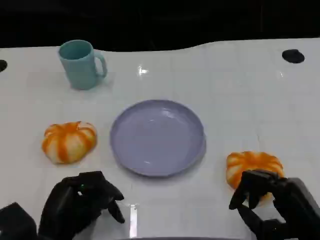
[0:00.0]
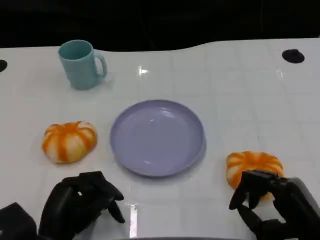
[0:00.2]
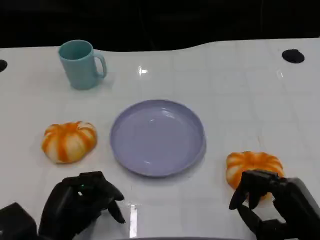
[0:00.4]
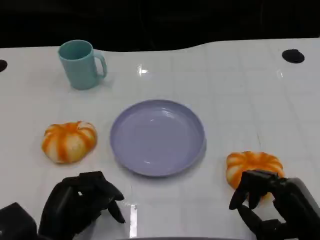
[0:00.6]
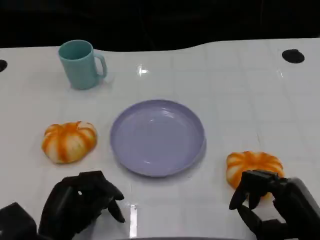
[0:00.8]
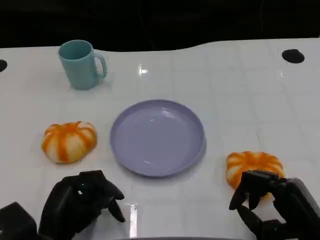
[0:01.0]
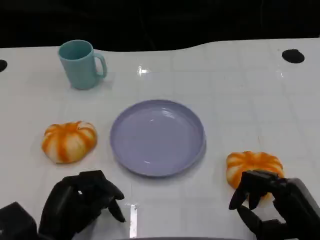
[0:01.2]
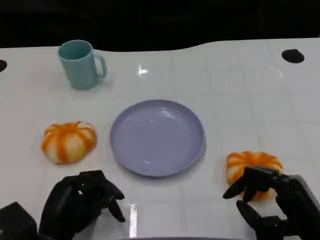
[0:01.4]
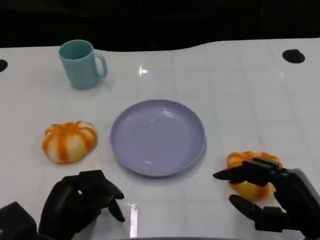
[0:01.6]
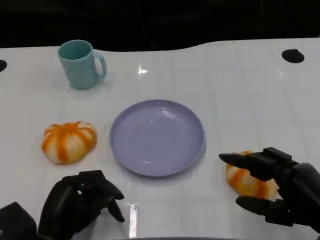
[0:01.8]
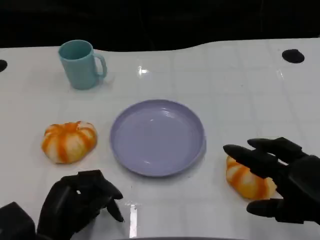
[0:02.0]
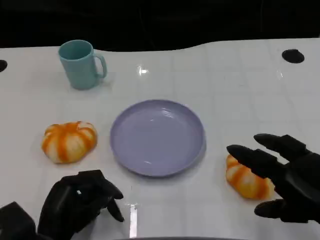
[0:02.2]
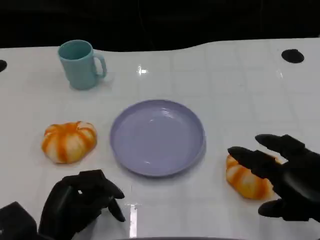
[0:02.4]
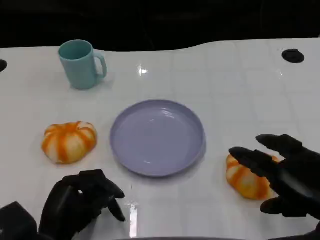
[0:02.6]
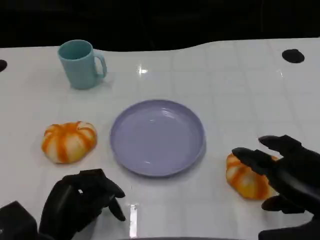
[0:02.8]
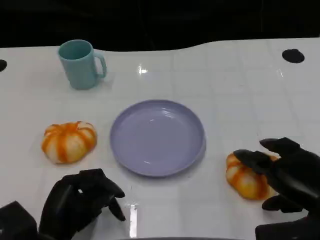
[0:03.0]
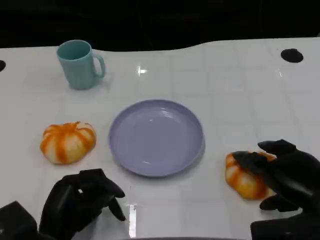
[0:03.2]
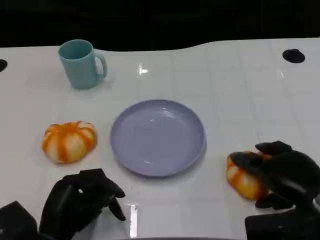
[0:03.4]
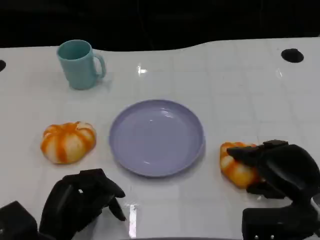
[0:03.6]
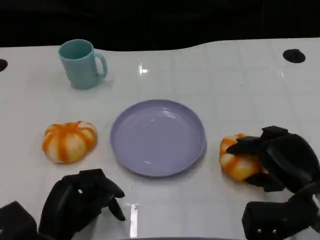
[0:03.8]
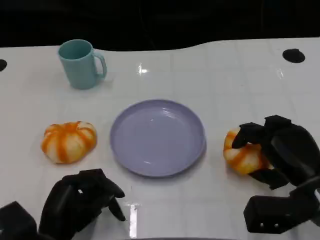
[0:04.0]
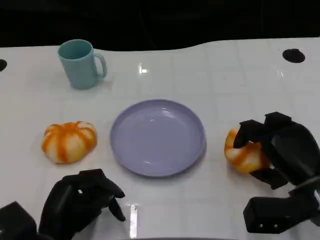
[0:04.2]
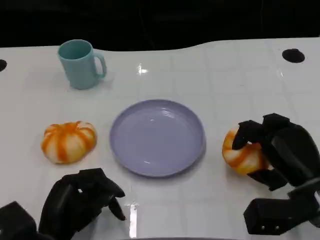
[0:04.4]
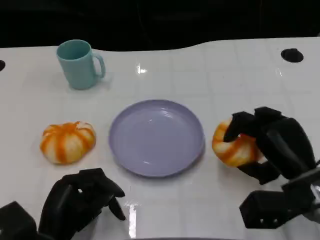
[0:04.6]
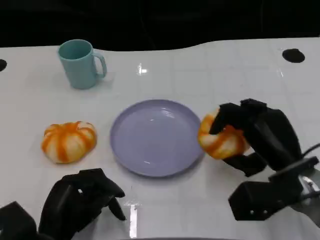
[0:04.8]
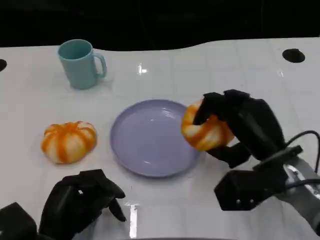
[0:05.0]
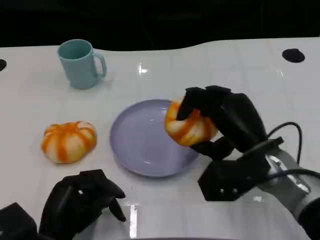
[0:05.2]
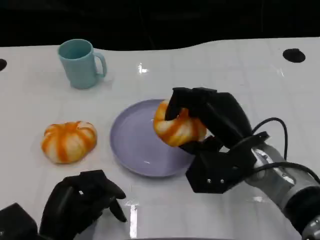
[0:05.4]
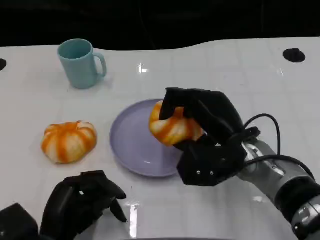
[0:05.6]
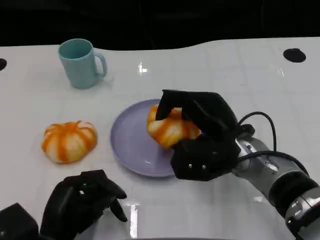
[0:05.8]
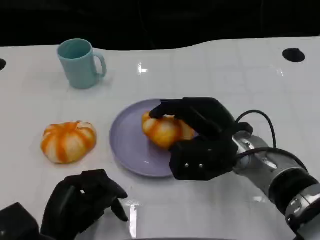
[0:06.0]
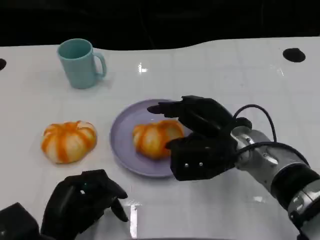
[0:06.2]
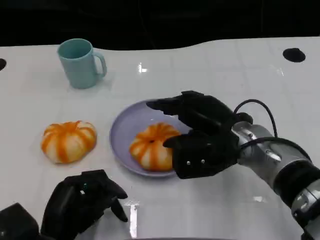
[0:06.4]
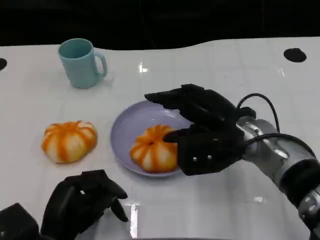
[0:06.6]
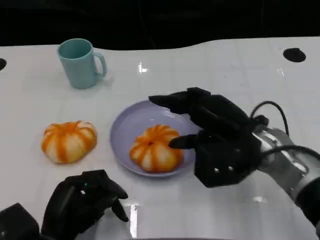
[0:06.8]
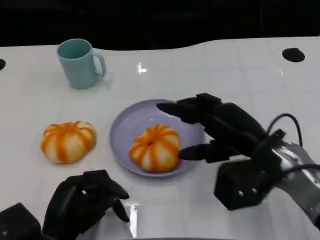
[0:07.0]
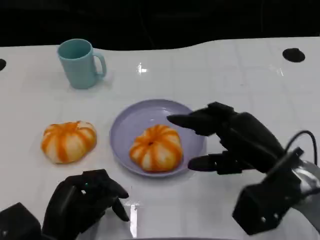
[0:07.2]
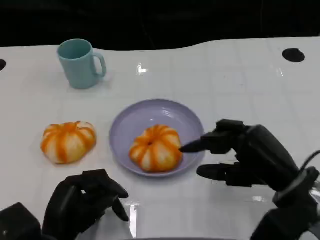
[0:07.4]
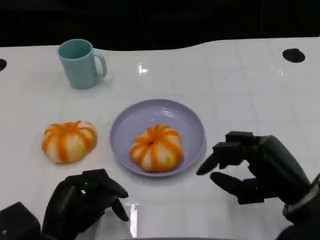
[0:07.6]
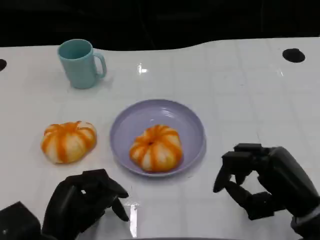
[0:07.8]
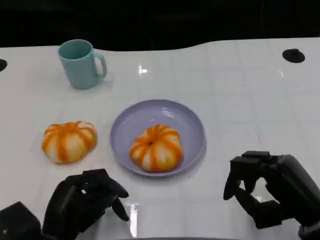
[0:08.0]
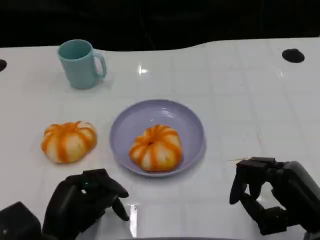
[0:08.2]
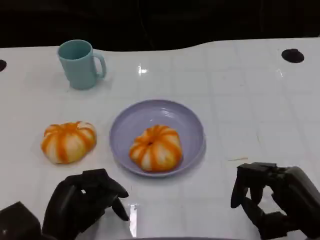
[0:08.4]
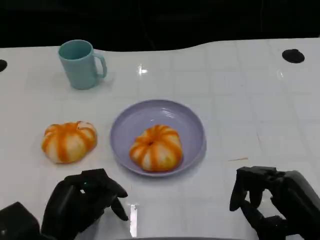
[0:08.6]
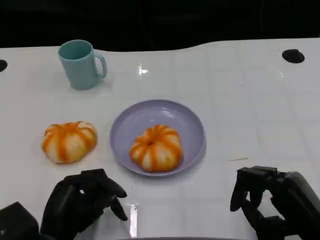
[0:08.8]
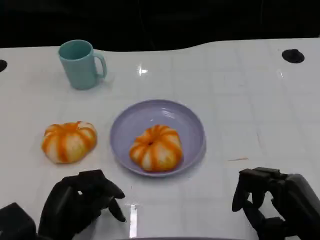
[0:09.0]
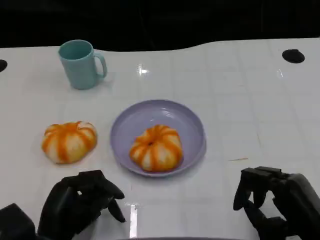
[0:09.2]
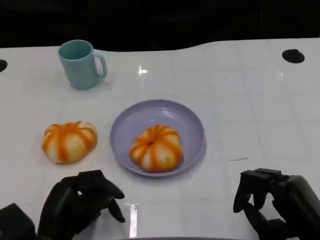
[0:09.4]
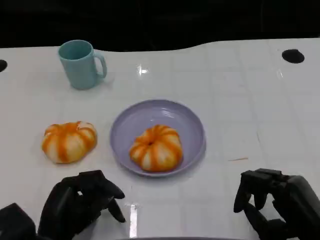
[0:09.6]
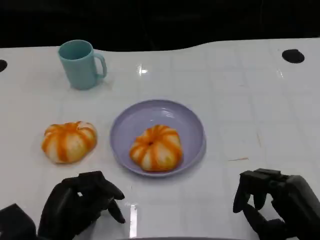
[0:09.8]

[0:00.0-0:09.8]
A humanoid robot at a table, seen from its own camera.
Task of the whole recording: Grasp the bread from the table and place it into the plate.
0:00.0 to 0:01.4: The two hands keep their place.
0:01.4 to 0:02.8: The right hand shifts about 5 cm upward.
0:02.8 to 0:04.2: The right hand is displaced forward and downward by roughly 5 cm.
0:04.2 to 0:05.6: The right hand travels to the left by approximately 10 cm.
0:05.6 to 0:07.0: The right hand heads to the right, covering some 5 cm.
0:07.0 to 0:08.4: The right hand shifts some 10 cm backward and to the right.
0:08.4 to 0:09.8: The hands move only a little.

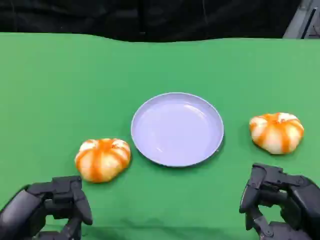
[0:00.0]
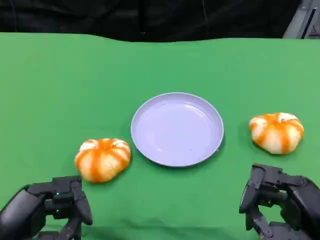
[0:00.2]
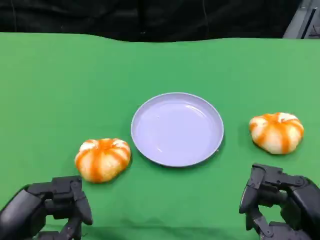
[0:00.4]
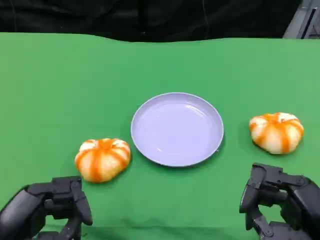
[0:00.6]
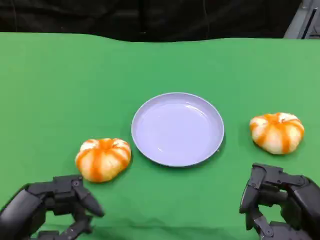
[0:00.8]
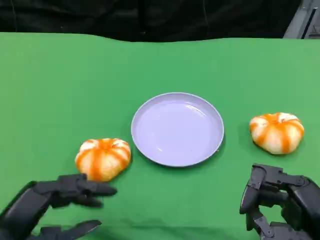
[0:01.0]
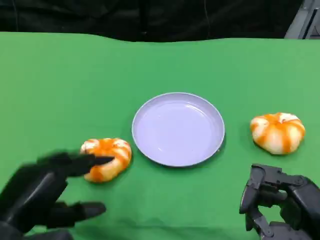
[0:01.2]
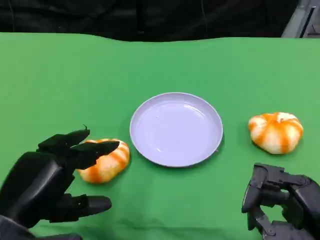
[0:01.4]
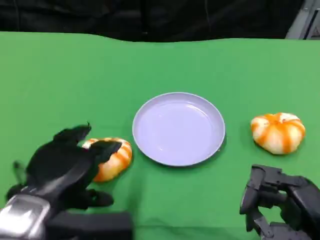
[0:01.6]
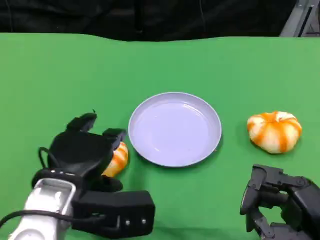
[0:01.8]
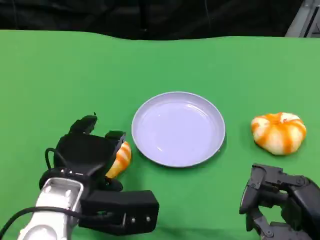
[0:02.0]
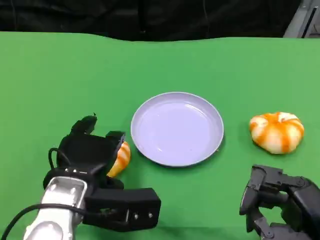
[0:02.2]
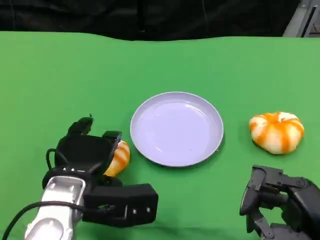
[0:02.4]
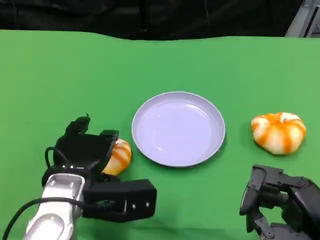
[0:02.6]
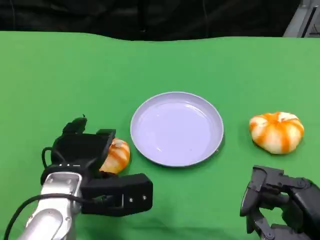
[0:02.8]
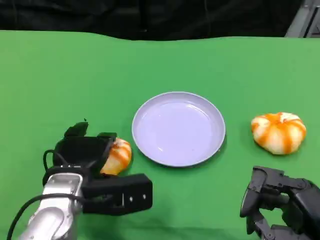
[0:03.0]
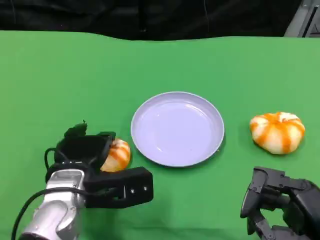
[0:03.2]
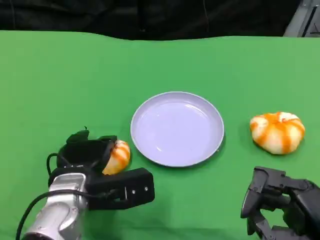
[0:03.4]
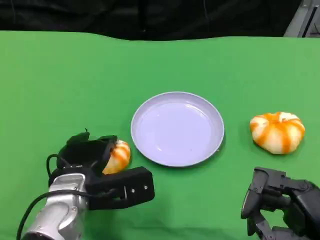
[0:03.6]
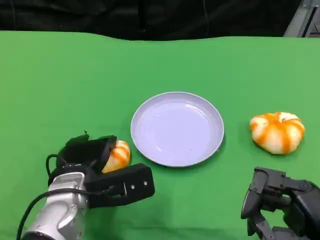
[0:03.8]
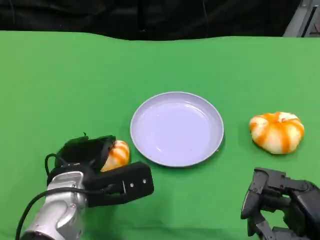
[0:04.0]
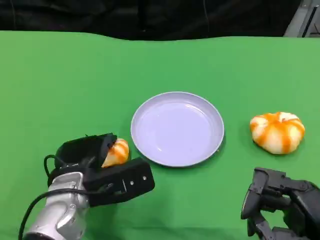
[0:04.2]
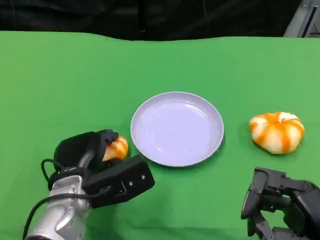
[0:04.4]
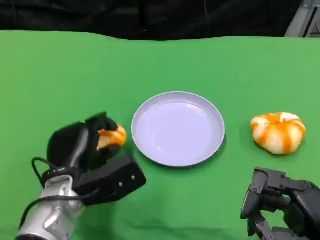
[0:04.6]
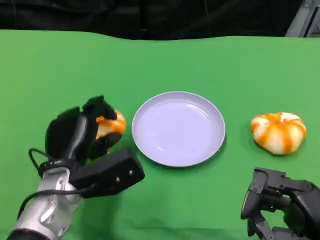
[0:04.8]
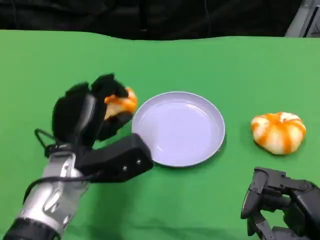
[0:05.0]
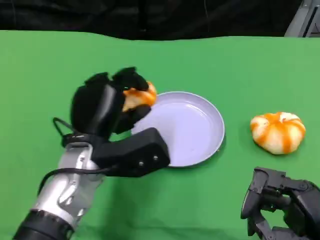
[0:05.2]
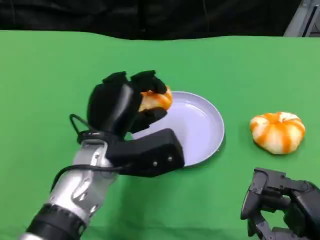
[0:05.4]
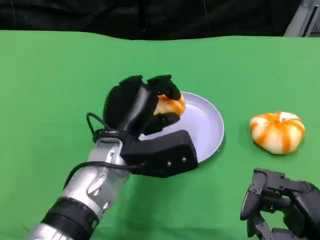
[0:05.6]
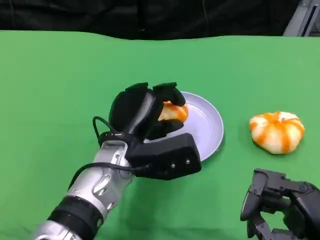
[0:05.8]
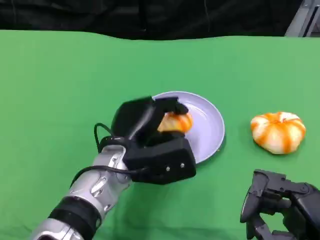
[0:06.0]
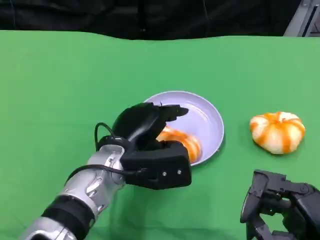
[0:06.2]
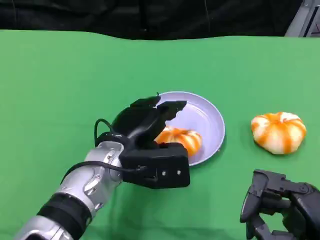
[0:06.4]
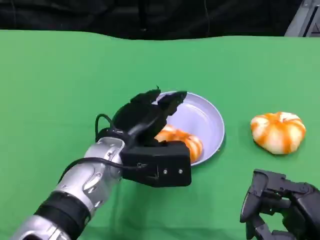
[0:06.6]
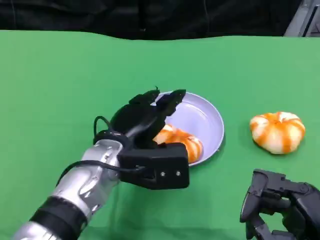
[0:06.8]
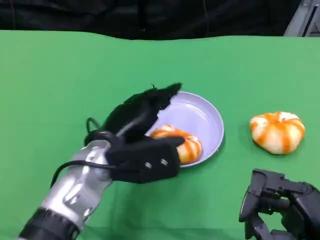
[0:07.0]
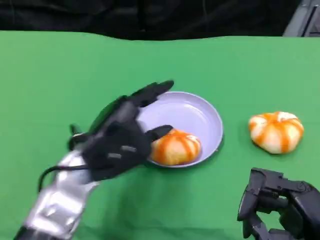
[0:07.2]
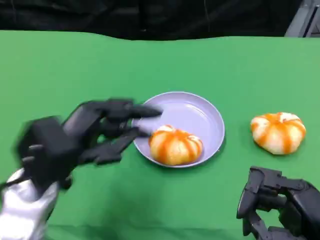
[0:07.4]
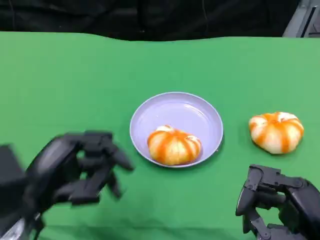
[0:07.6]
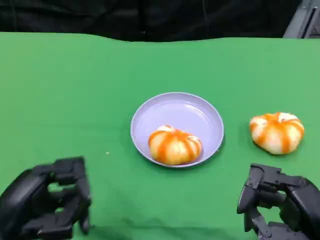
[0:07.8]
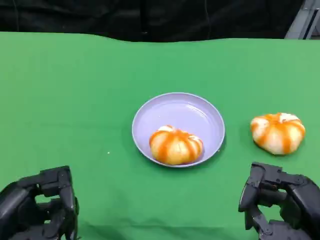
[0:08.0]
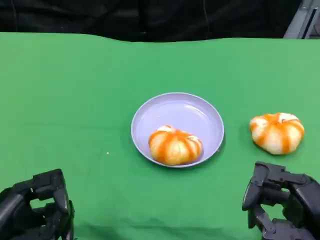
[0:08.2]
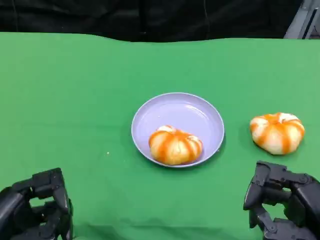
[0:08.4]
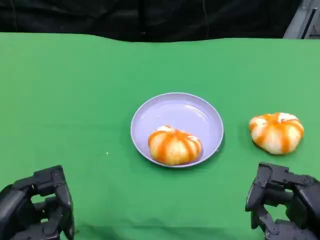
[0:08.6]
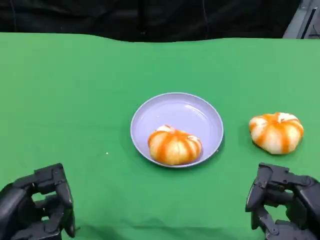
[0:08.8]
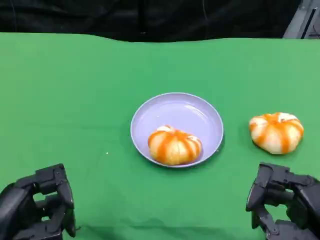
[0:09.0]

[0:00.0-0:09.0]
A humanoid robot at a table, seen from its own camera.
Task of the whole recording: Grasp the bread from the table and place it into the plate.
0:00.0 to 0:01.6: The left hand travels to the right and forward by about 10 cm.
0:01.6 to 0:03.0: The left hand is displaced downward and forward by about 10 cm.
0:04.4 to 0:06.0: The left hand is displaced to the right by approximately 5 cm.
0:06.0 to 0:07.6: The left hand goes approximately 20 cm to the left and backward.
0:07.6 to 0:09.0: The left hand ends up roughly 5 cm from where it was.

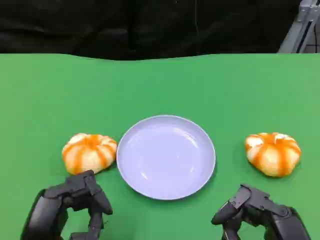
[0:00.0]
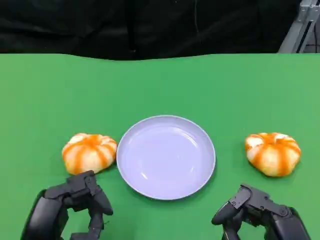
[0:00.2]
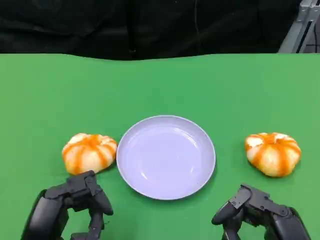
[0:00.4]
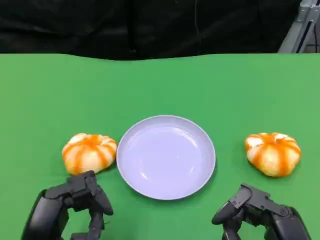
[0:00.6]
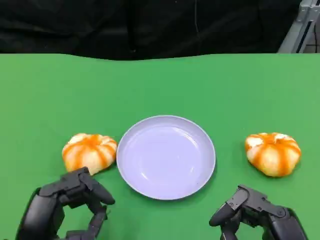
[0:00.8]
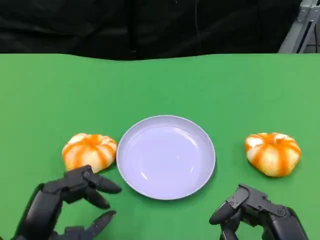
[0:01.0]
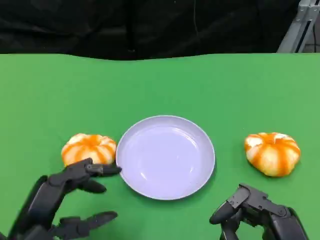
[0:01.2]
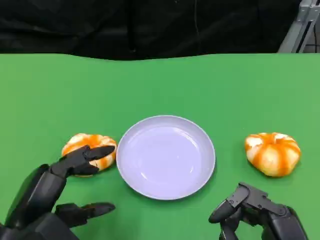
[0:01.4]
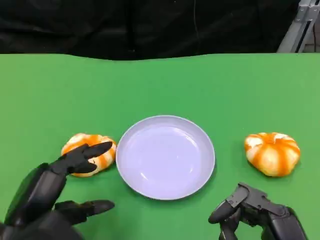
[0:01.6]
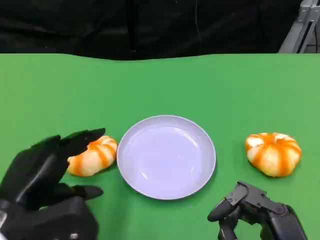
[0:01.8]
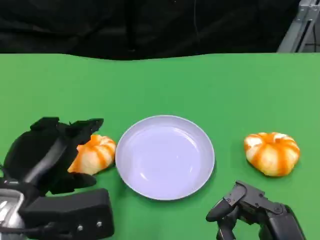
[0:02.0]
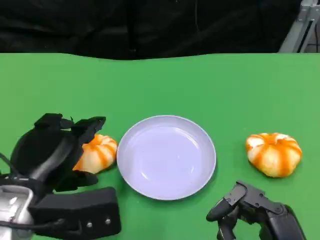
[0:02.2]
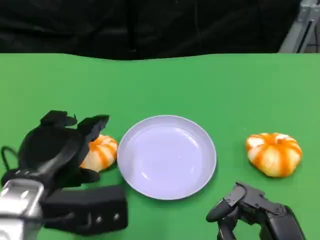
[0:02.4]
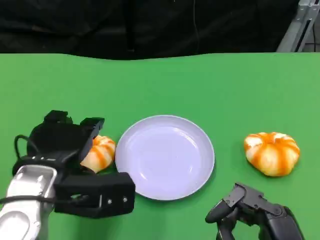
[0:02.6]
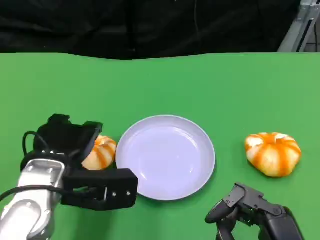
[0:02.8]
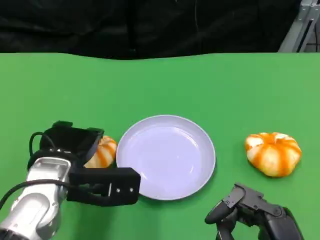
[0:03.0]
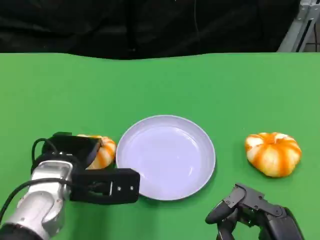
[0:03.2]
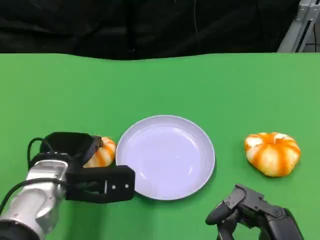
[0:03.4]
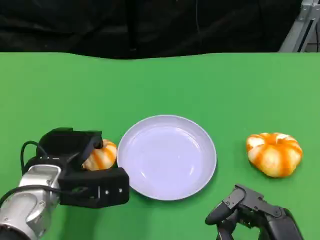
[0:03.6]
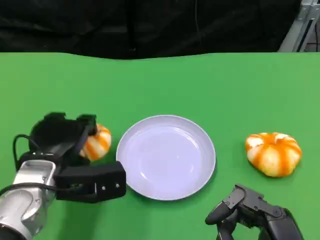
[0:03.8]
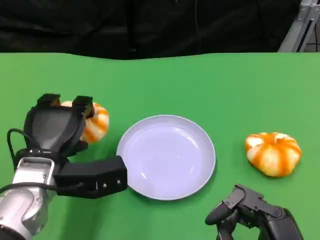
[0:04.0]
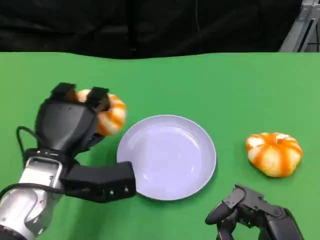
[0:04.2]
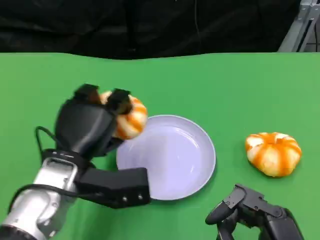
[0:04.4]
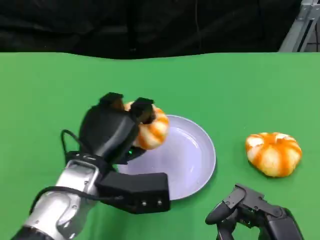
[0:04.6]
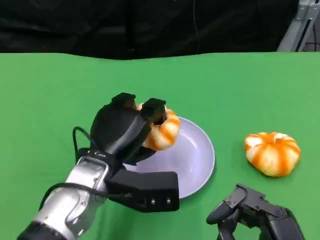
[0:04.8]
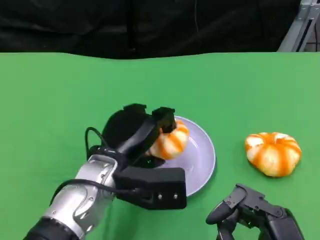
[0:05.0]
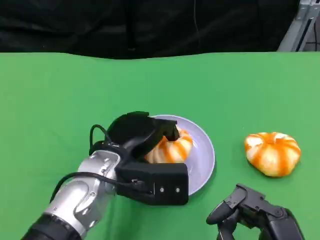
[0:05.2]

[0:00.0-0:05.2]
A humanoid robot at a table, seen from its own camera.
Task of the whole recording: Grasp the bread from the table and place it into the plate.
0:00.0 to 0:01.8: The left hand is displaced upward by some 5 cm.
0:01.8 to 0:03.4: The left hand travels forward and downward by approximately 10 cm.
0:03.4 to 0:05.2: The left hand goes roughly 10 cm to the right.
